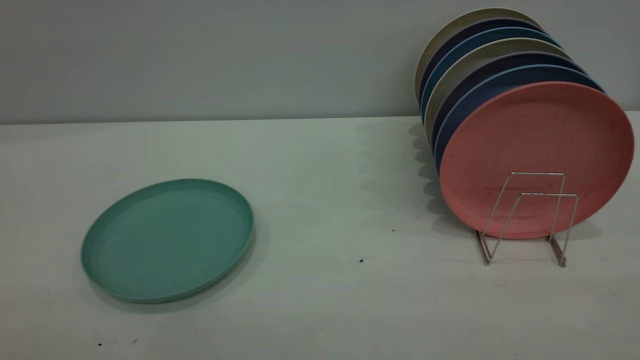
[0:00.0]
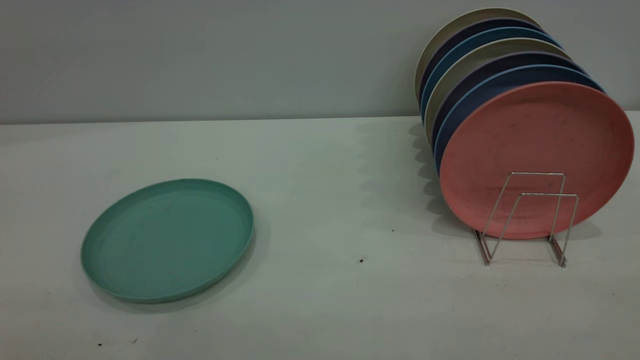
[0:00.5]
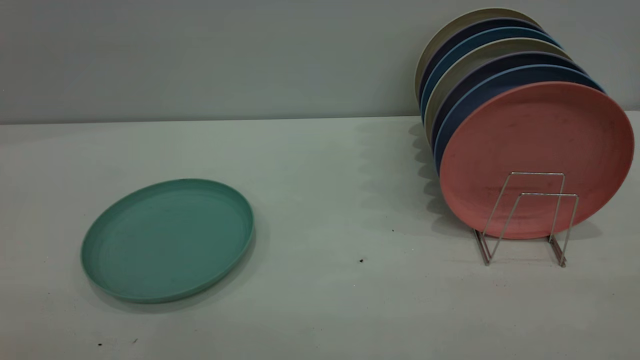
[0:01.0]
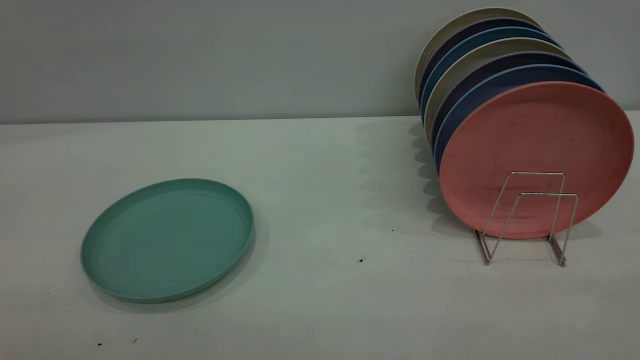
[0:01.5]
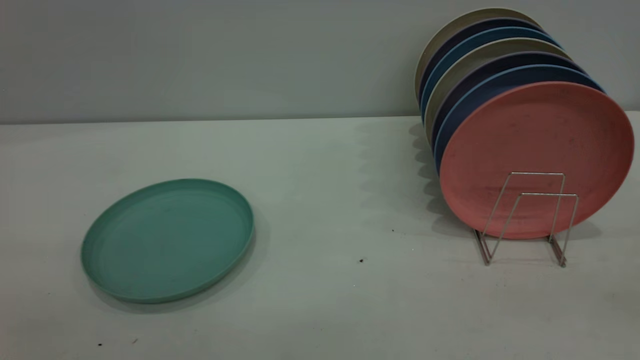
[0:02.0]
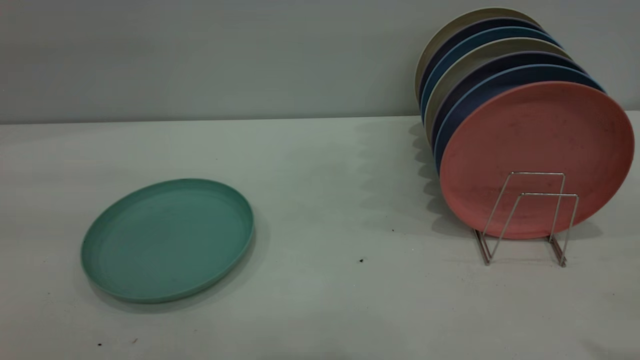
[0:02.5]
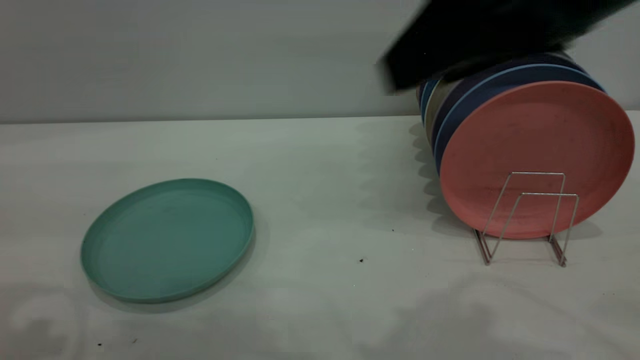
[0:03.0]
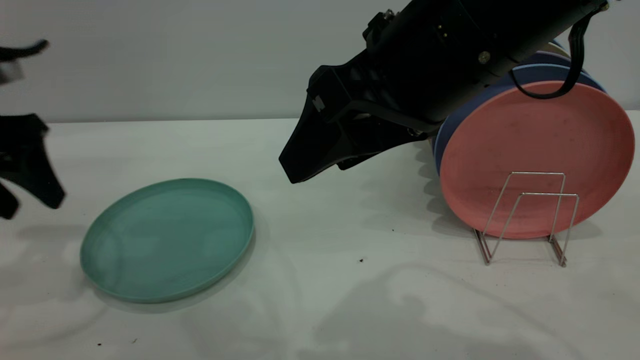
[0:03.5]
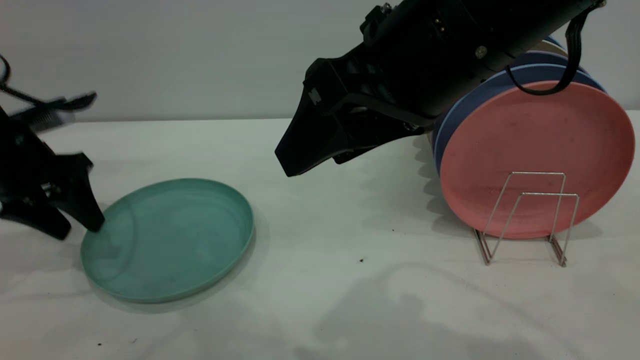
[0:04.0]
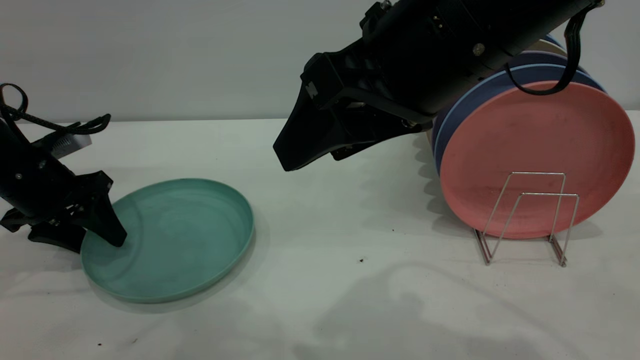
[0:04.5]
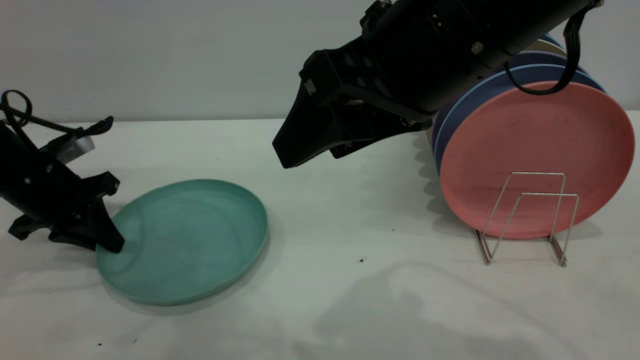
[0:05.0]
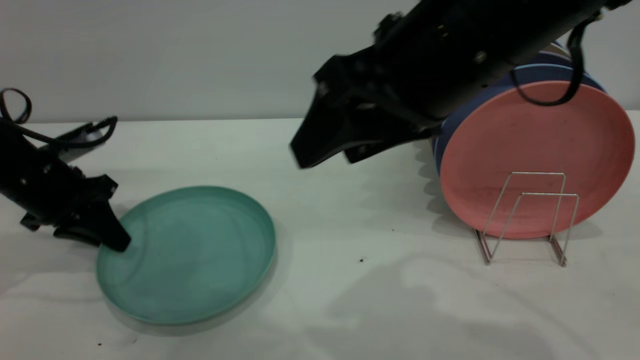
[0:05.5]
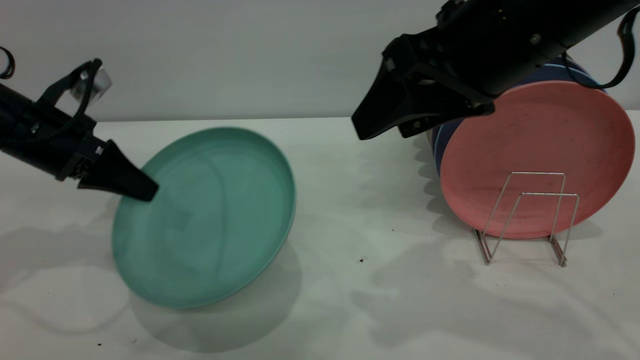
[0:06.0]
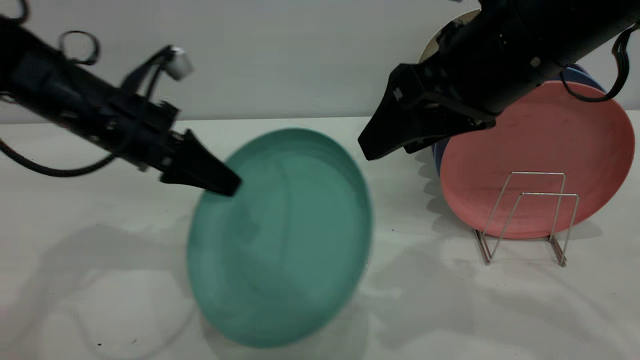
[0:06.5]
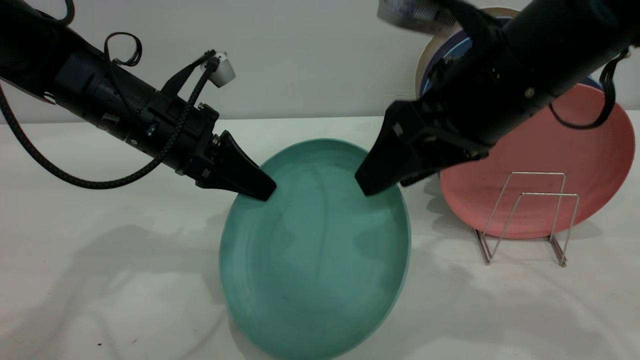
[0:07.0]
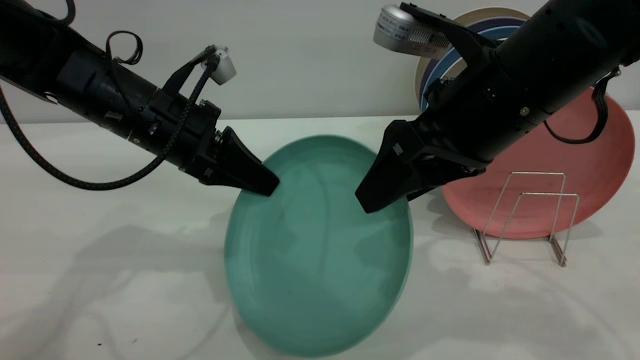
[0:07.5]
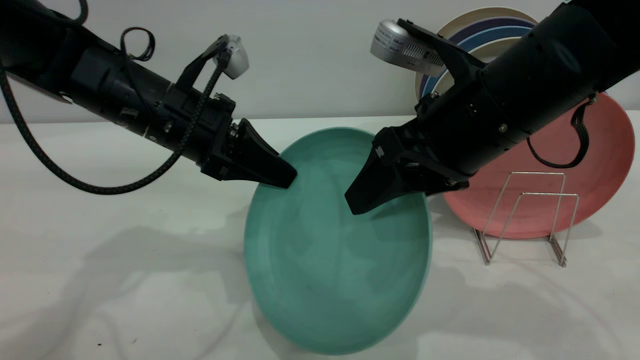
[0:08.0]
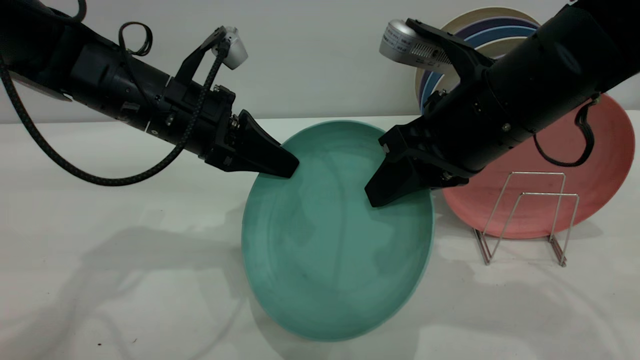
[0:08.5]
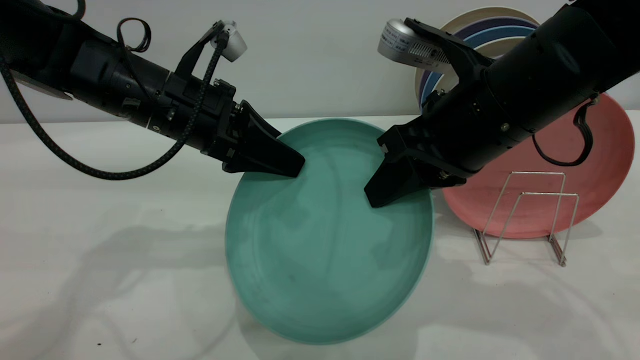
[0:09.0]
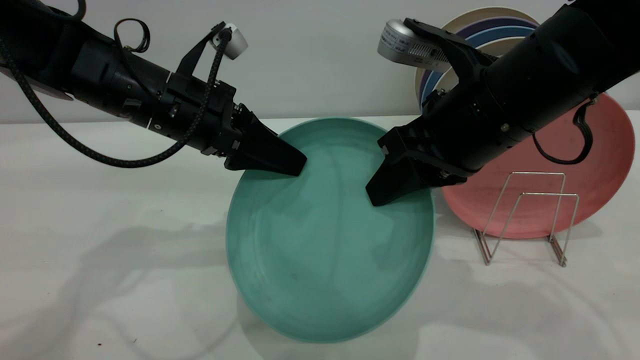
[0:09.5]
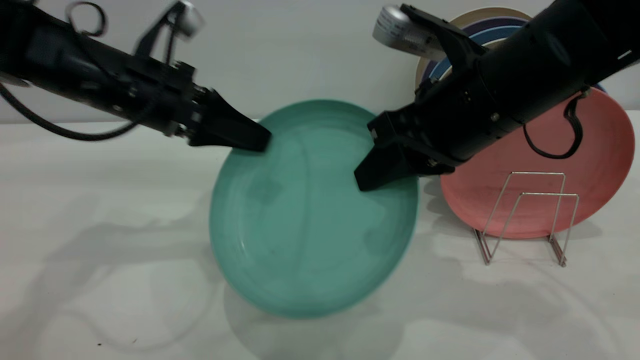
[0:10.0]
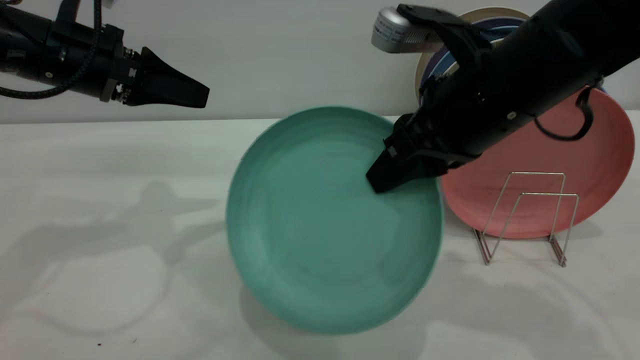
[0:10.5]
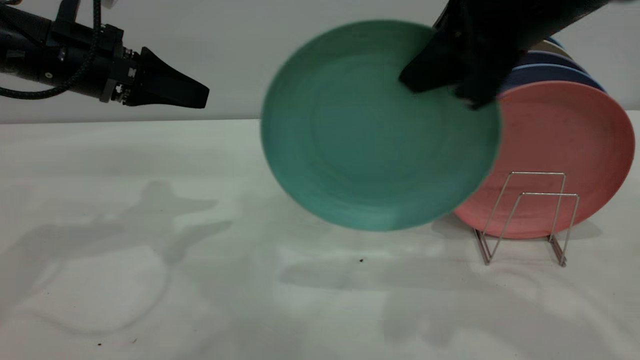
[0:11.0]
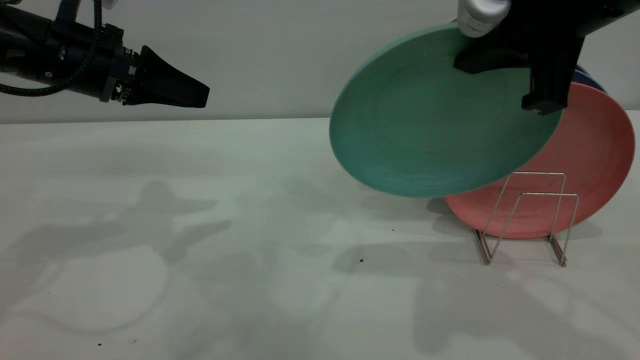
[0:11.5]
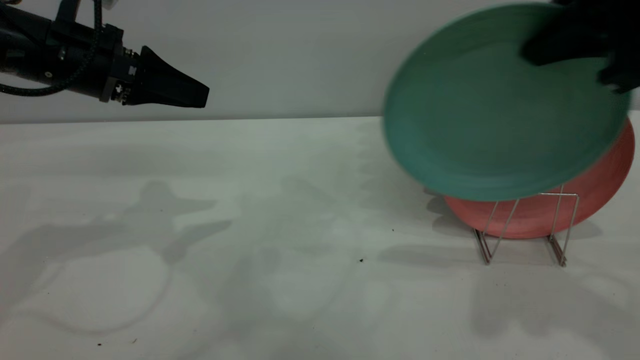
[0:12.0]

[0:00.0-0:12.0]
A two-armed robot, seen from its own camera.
Task of the whole recording: the left gripper grasp the green plate, the left gripper pass the green plate to the right gripper, and the right gripper place the green plate on the plate rack.
Step, 0:00.0 to 0:06.0: Pick up the plate with the left gripper.
Step, 0:06.5 to 0:10.0: Pass the plate from the left gripper to the right gripper.
0:02.0 to 0:04.0: The right gripper goes approximately 30 cm forward and to the left; the left gripper travels forward and downward by some 40 cm.
0:04.0 to 0:06.0: The left gripper closes up. Meanwhile the right gripper is displaced to the right by about 5 cm.
0:06.0 to 0:08.0: The right gripper heads downward, covering about 5 cm; the left gripper is displaced to the right by approximately 15 cm.
0:08.0 to 0:10.0: The right gripper closes its fingers. Meanwhile the left gripper changes place by some 5 cm, and opens up.
0:10.0 to 0:12.0: The right gripper moves to the right and upward, approximately 15 cm, while the left gripper travels to the left by about 5 cm.

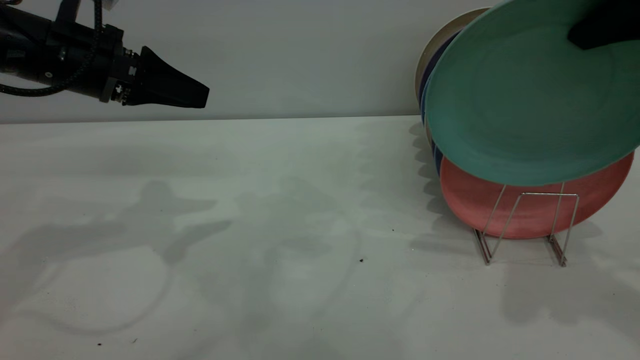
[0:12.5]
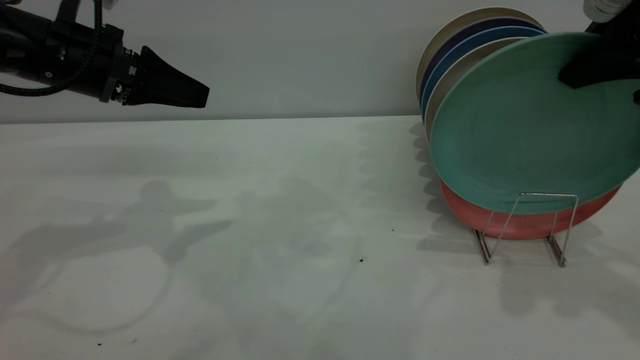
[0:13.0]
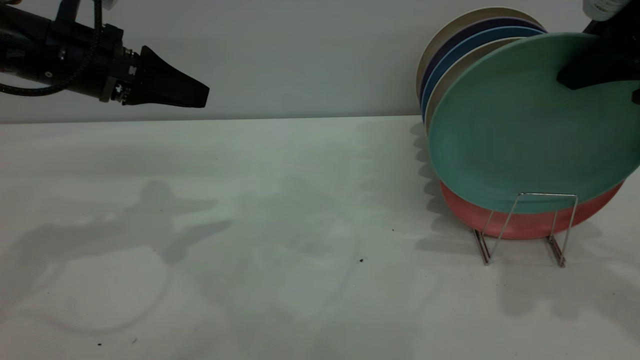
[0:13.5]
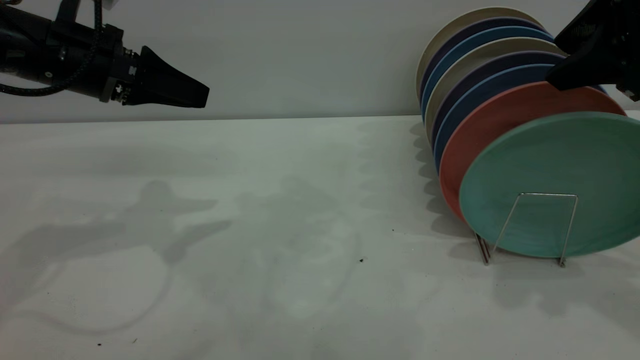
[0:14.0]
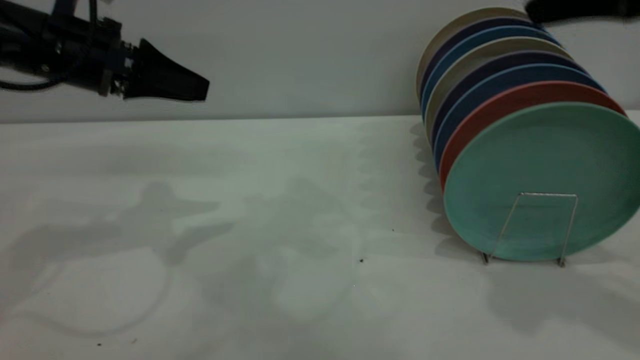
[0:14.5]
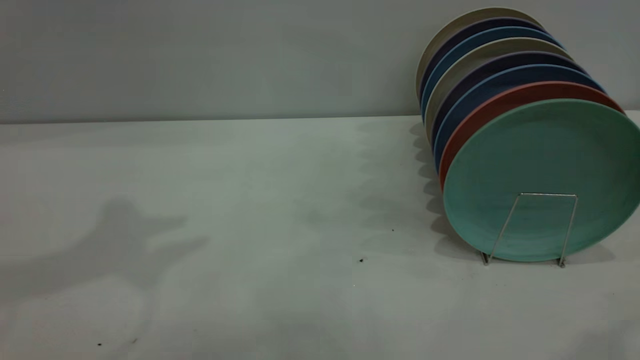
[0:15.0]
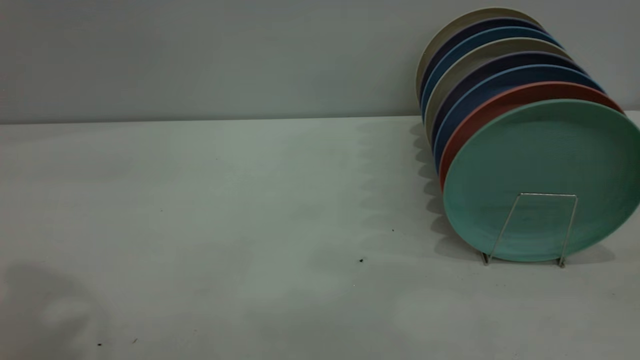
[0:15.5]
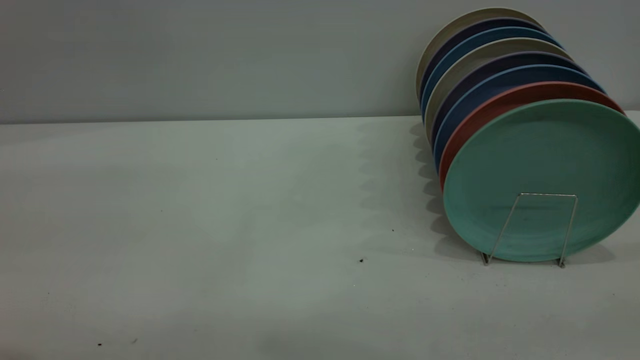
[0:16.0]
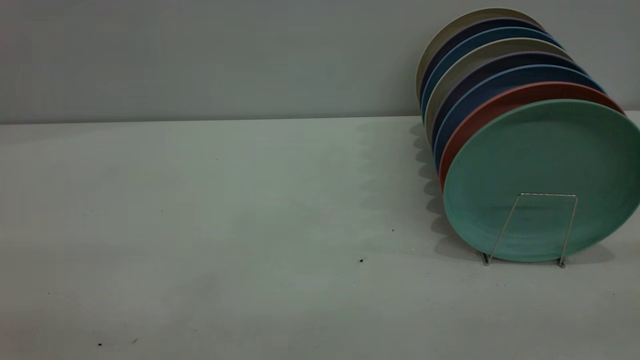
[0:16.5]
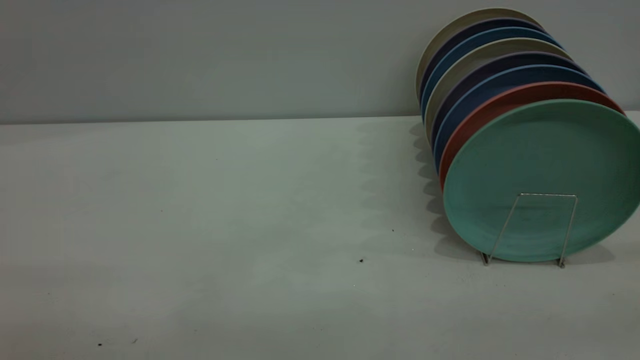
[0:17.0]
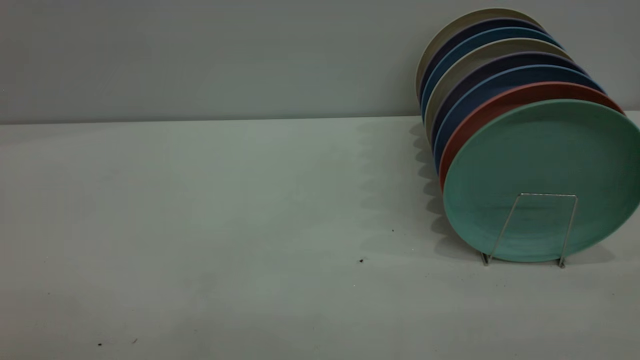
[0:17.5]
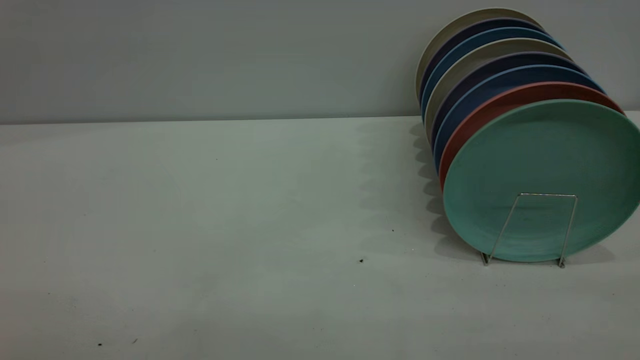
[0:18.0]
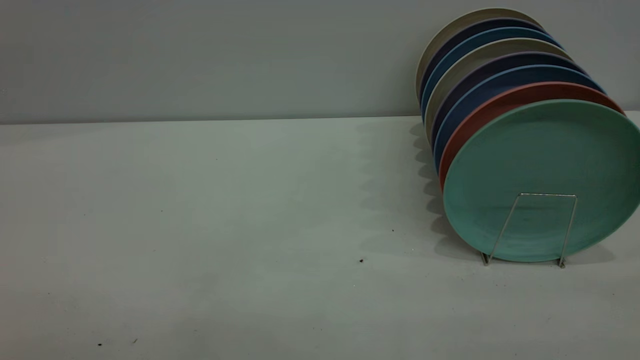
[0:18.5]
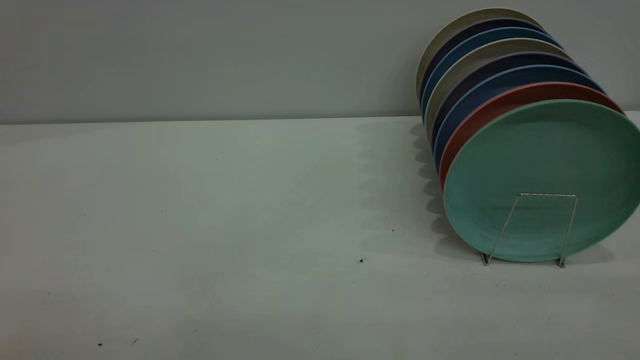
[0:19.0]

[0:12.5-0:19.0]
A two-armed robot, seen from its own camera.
Task of the whole recording: the left gripper grasp the green plate, the left gripper pass the green plate to the right gripper, and the right gripper place the green plate on the plate rack.
0:12.5 to 0:14.5: The right gripper opens its fingers.
0:14.5 to 0:17.0: The left gripper goes some 40 cm backward. The right gripper goes approximately 25 cm backward.

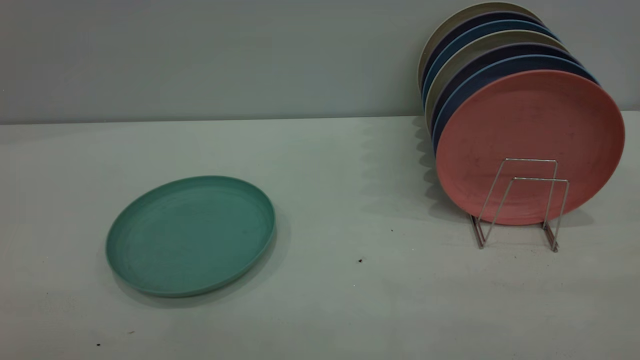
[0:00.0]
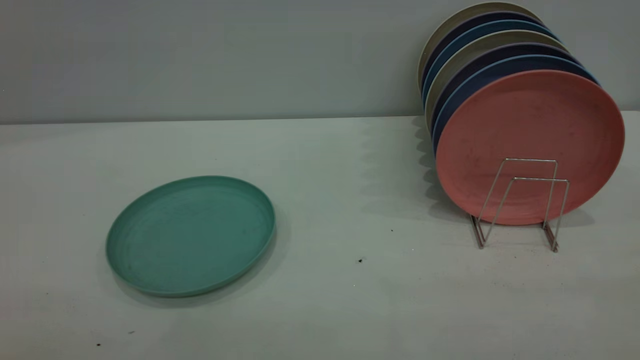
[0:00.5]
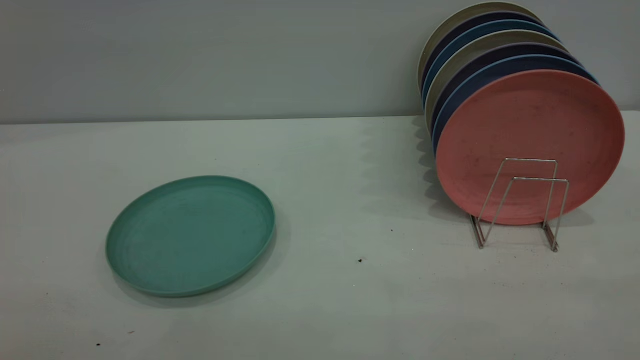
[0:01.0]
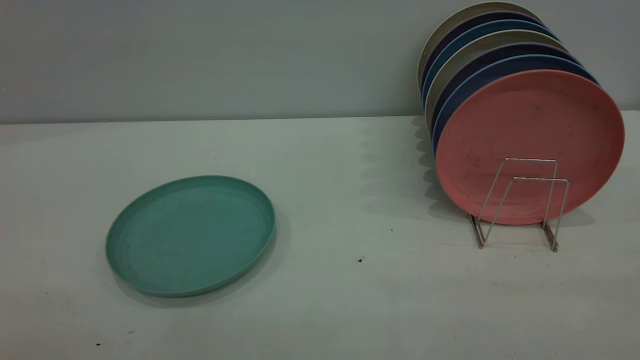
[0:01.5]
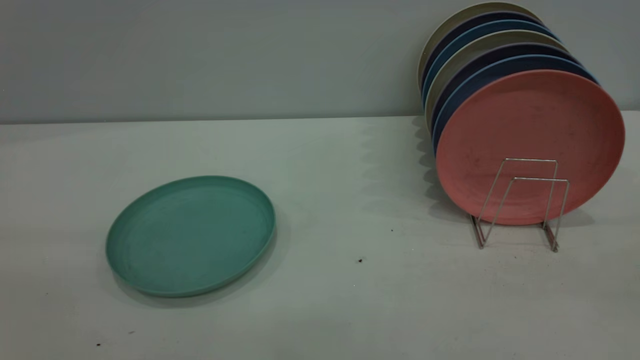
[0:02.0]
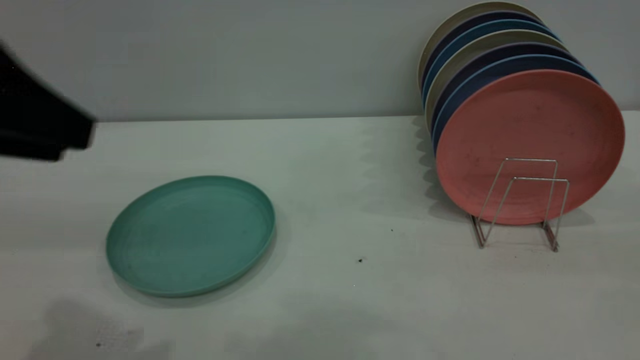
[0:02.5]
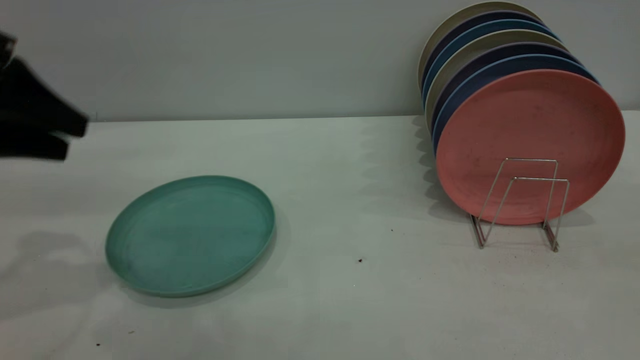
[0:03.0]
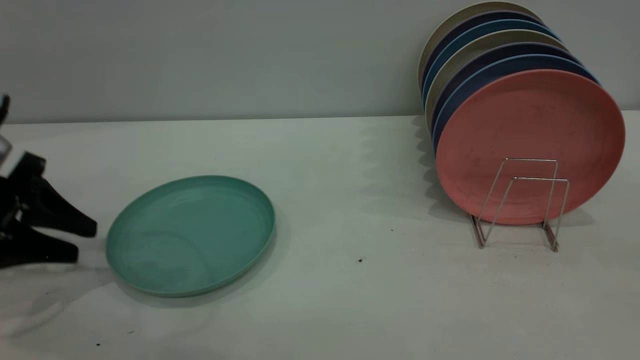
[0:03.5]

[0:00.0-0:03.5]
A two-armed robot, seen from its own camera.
Task of the whole recording: the left gripper grasp the green plate, the left gripper pass the green plate to the right gripper, and the right gripper place the green plate on the plate rack.
0:02.0 to 0:03.5: The left gripper goes roughly 35 cm downward and forward.
